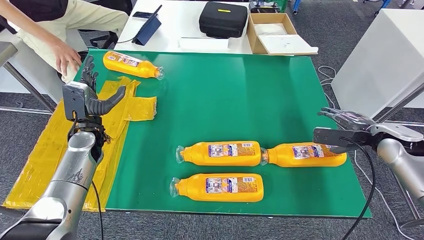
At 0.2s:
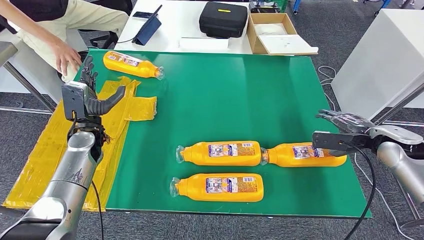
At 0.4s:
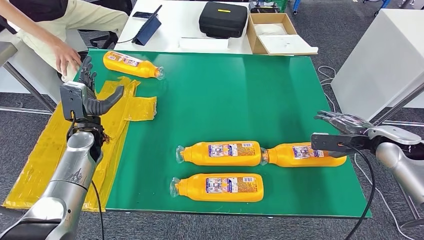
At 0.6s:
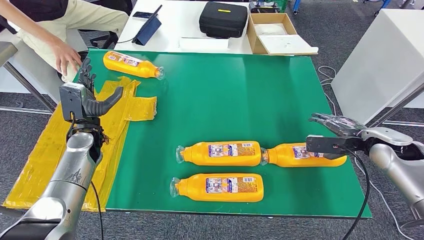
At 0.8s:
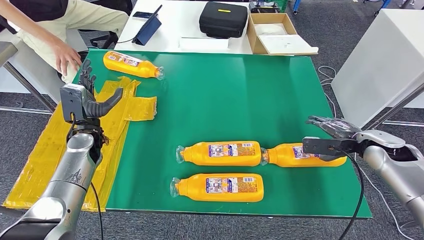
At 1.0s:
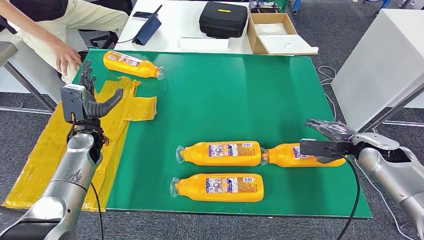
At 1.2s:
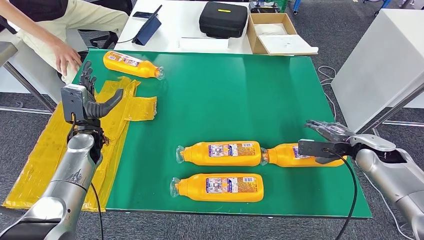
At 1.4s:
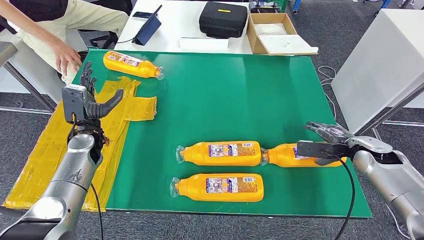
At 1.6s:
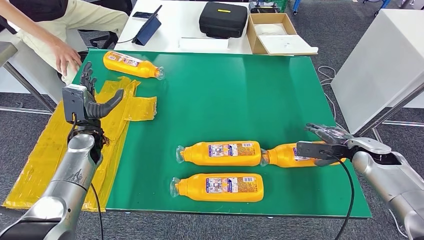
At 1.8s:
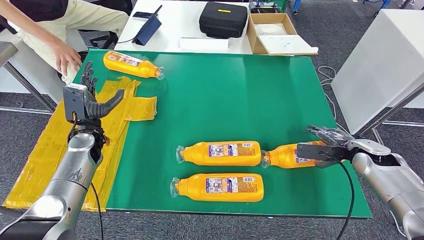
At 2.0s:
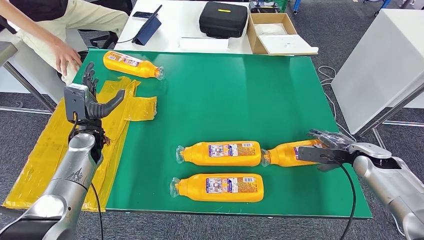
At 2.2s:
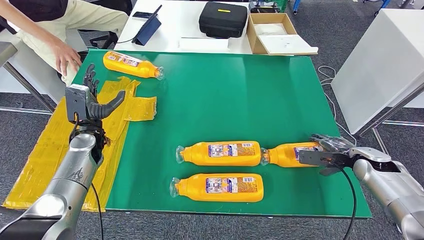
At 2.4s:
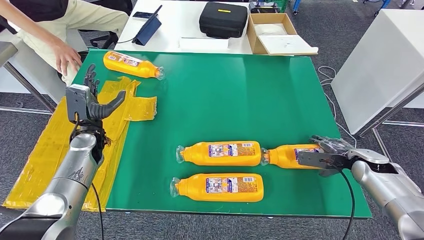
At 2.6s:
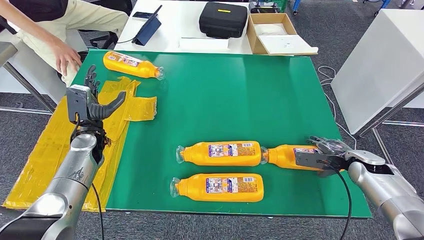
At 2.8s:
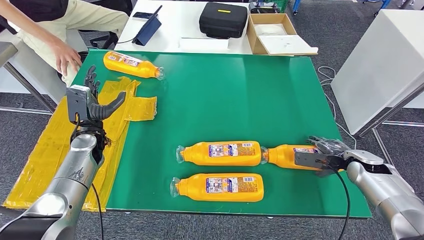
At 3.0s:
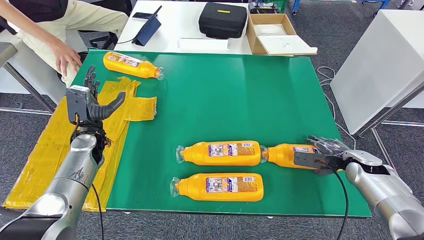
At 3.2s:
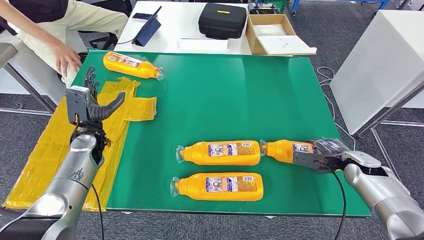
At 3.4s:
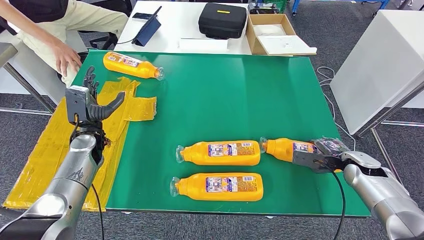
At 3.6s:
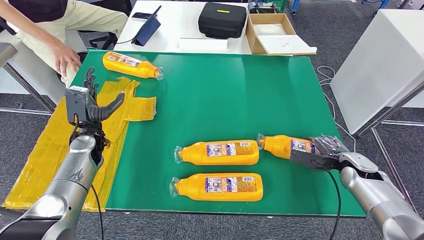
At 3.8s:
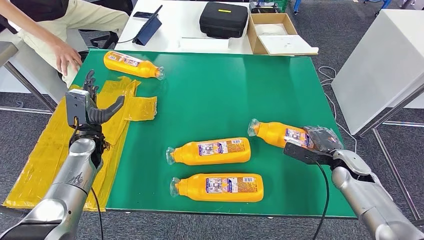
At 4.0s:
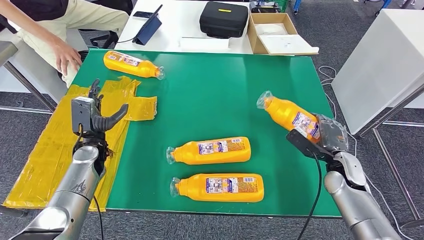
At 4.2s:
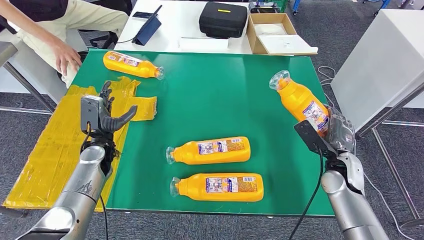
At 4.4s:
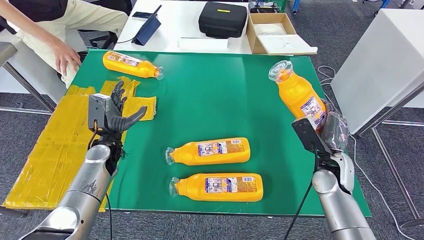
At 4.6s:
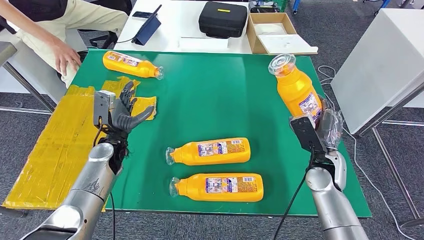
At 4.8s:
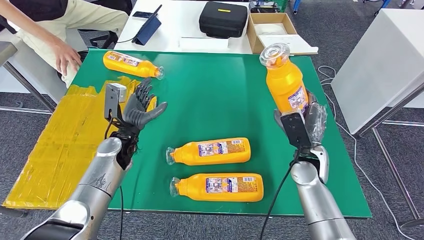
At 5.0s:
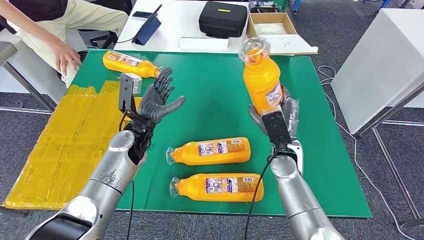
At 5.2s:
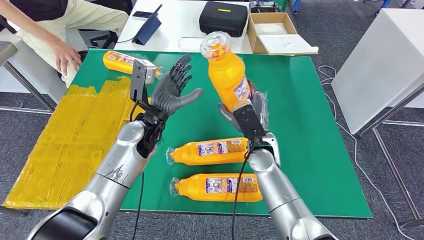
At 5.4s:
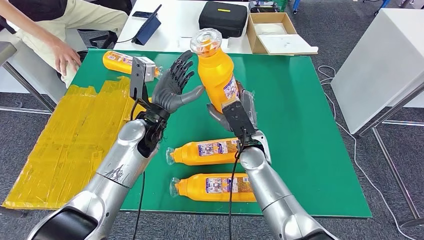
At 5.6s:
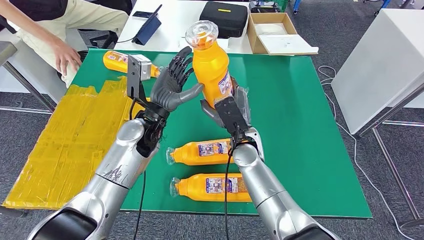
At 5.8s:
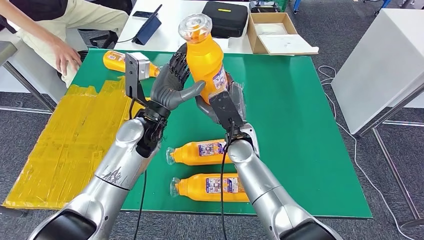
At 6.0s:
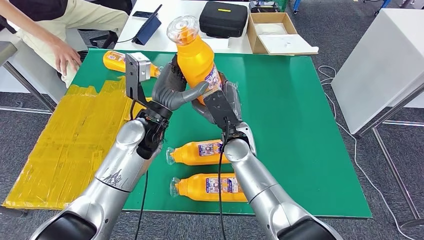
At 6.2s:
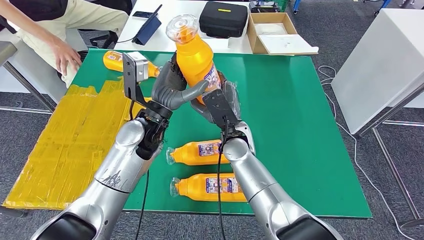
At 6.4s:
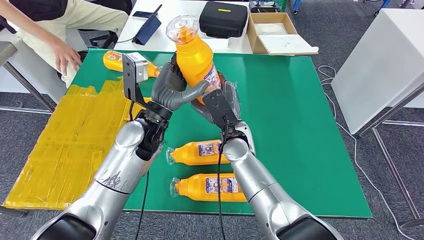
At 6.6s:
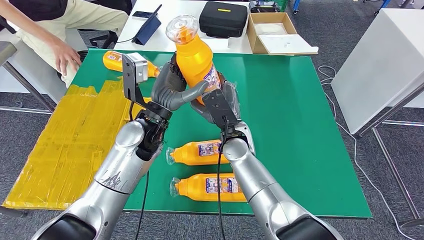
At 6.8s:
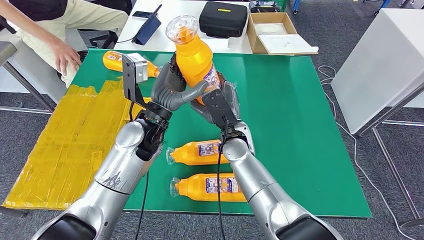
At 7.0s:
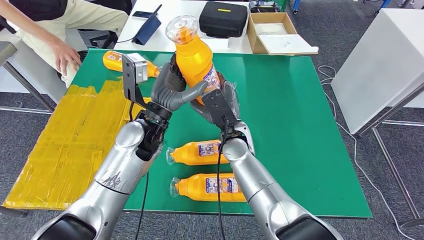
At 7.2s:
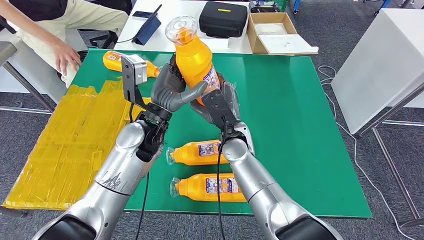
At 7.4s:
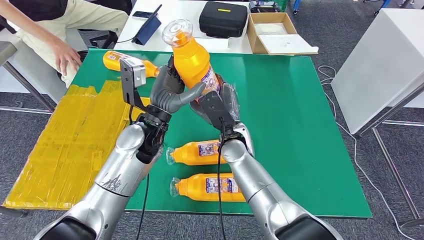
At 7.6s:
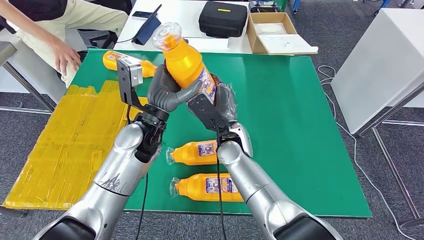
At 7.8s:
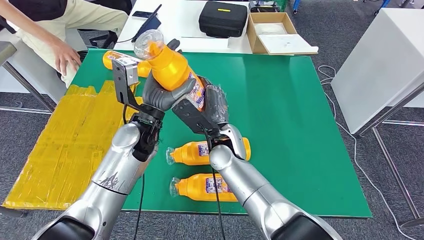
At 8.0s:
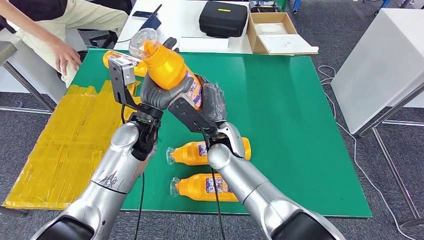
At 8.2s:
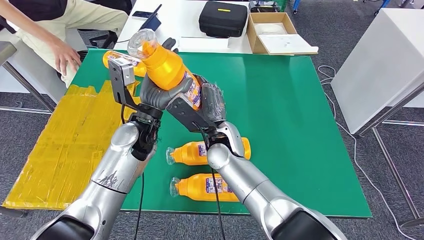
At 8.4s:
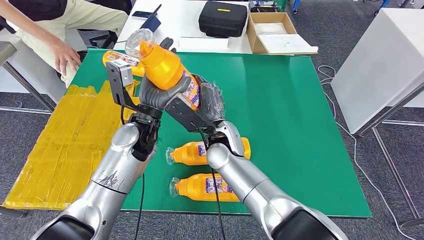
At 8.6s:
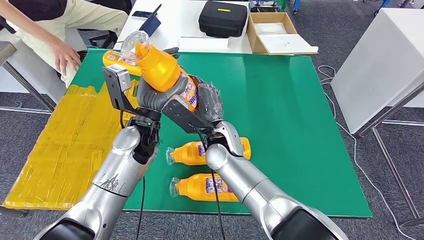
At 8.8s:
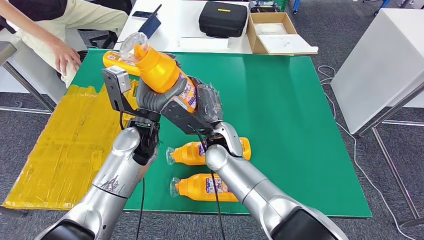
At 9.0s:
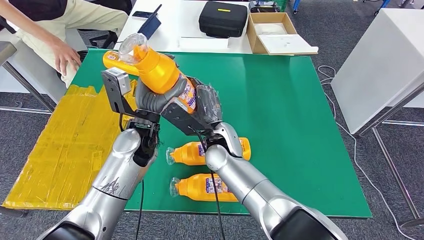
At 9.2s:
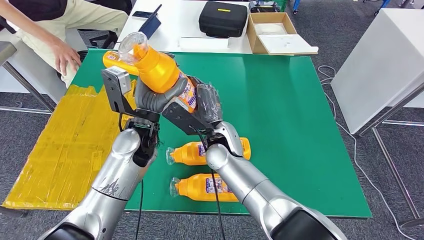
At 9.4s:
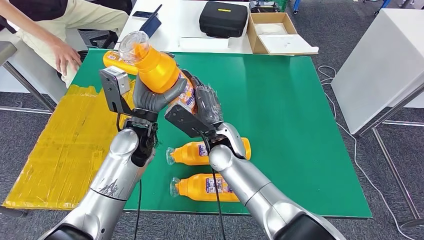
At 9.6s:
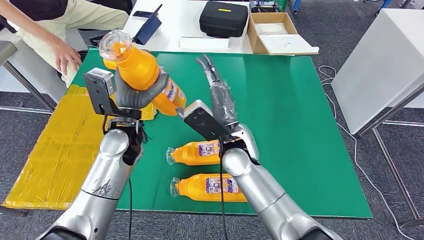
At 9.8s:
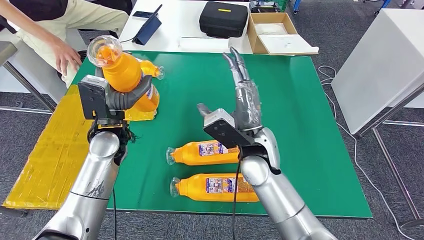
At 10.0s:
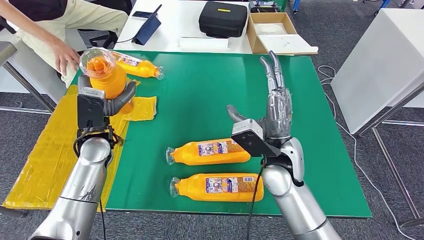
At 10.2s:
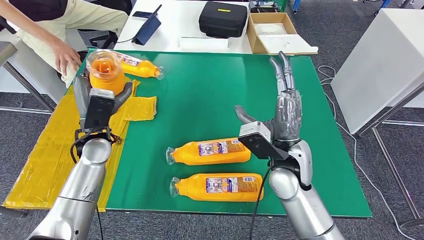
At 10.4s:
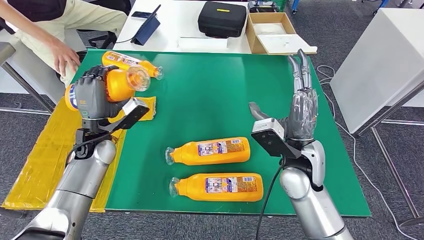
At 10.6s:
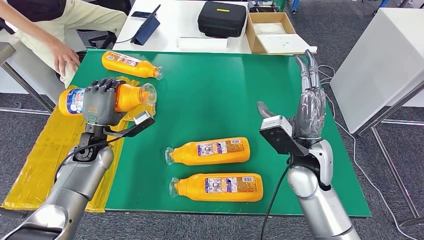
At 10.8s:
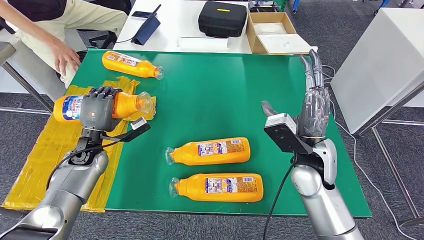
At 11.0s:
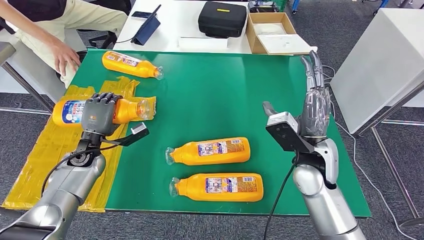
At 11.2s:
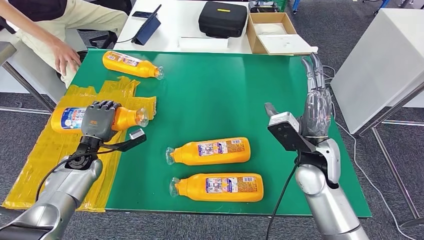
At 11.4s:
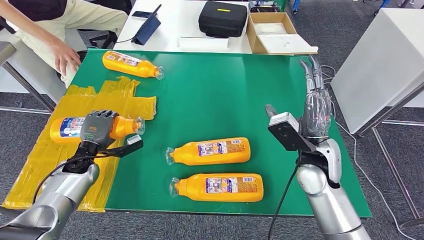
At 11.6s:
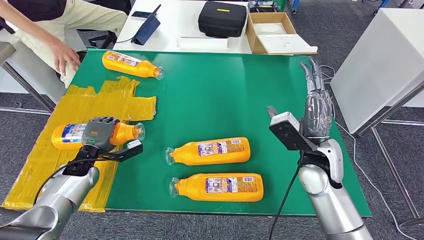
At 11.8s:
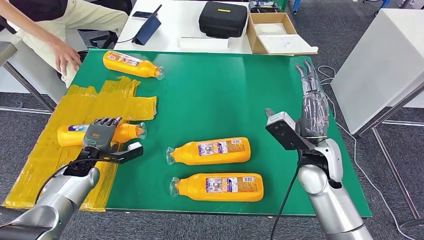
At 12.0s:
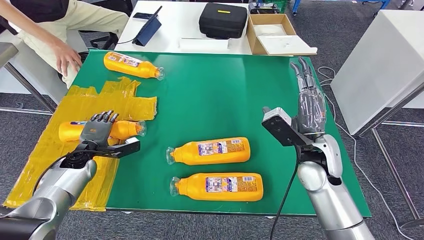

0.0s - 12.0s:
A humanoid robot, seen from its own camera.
Step, 0.4s - 6.2s: Pick up the bottle from the table.
0.0s - 1.6s: The right hand moves downward, approximately 5 cm.
1.6s - 3.0s: The hands make only small movements.
6.0s - 7.6s: There are only small adjustments of the hands.
7.6s - 9.0s: The hands move only a little.

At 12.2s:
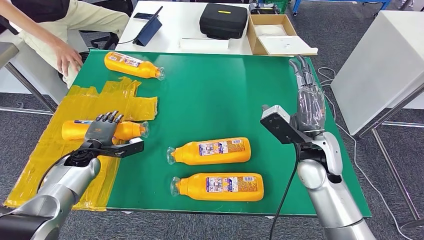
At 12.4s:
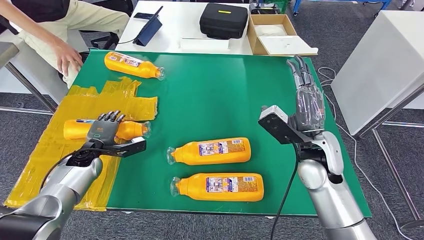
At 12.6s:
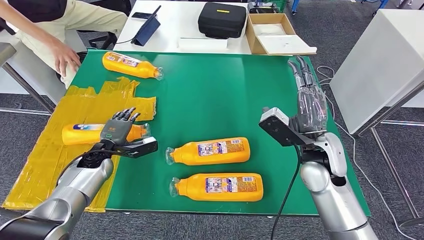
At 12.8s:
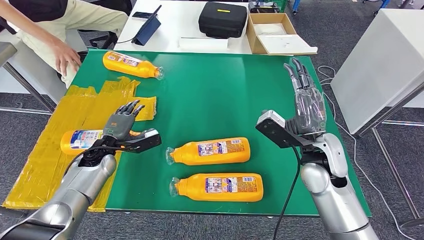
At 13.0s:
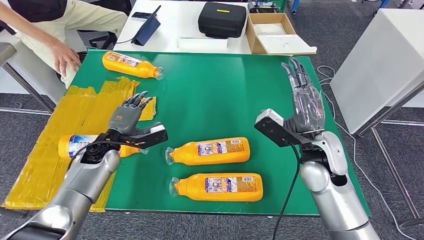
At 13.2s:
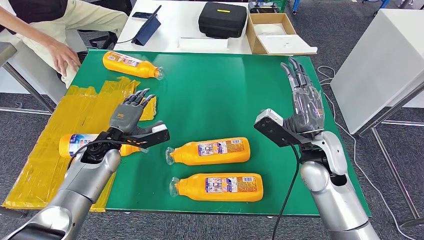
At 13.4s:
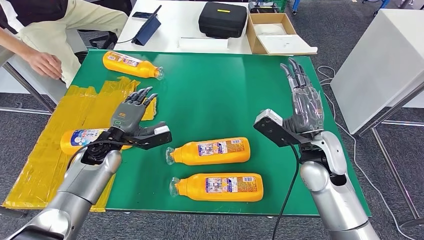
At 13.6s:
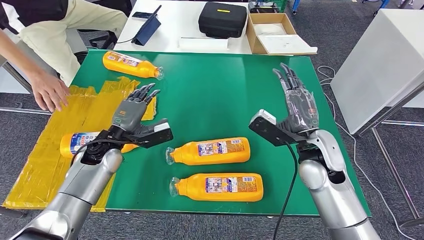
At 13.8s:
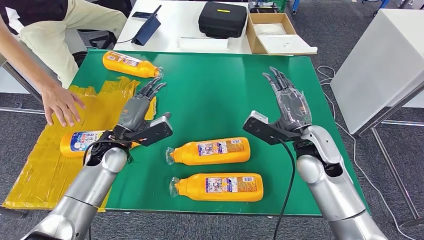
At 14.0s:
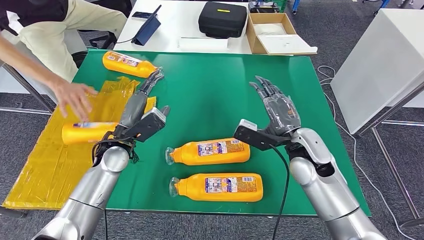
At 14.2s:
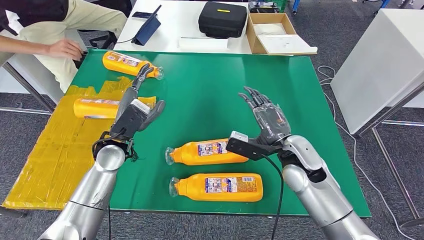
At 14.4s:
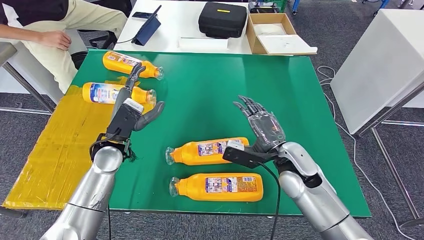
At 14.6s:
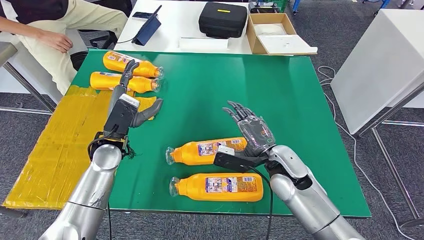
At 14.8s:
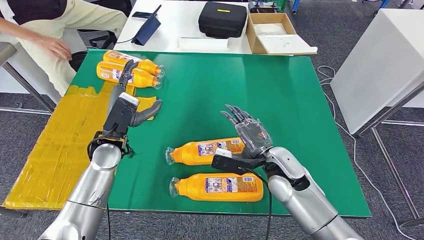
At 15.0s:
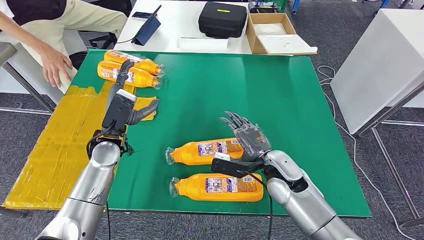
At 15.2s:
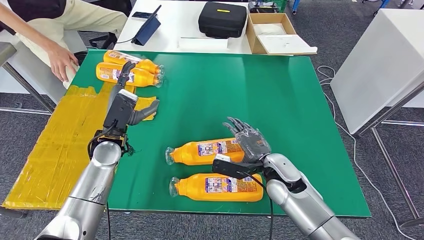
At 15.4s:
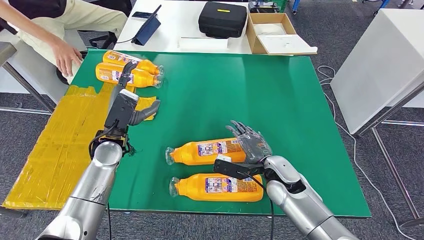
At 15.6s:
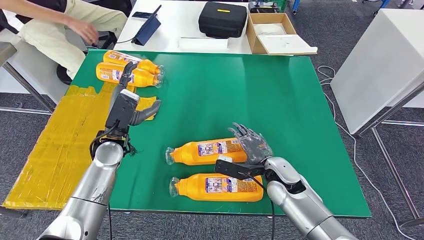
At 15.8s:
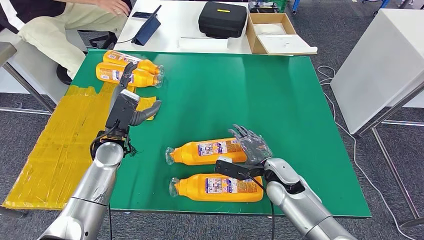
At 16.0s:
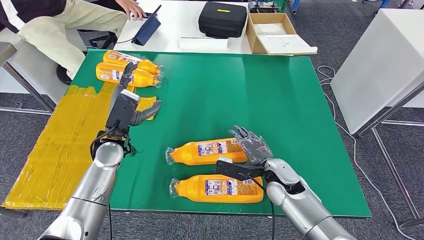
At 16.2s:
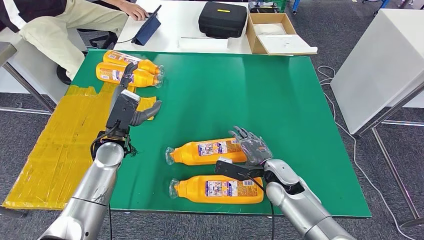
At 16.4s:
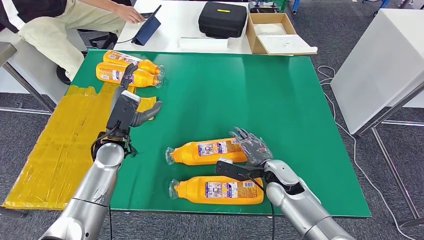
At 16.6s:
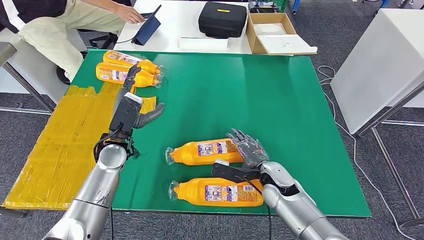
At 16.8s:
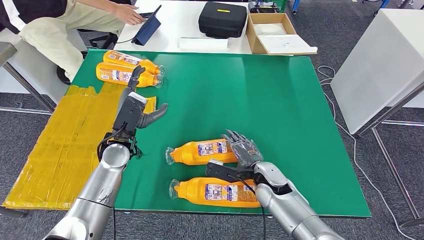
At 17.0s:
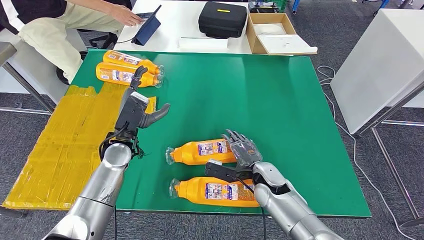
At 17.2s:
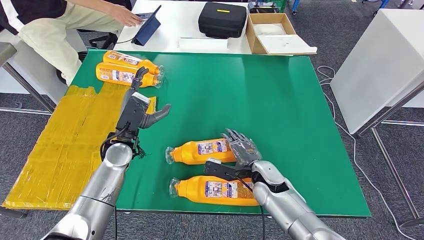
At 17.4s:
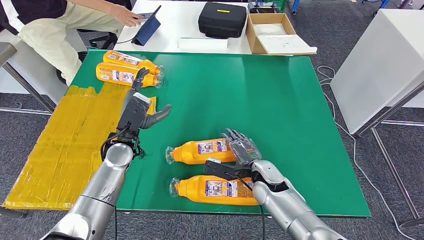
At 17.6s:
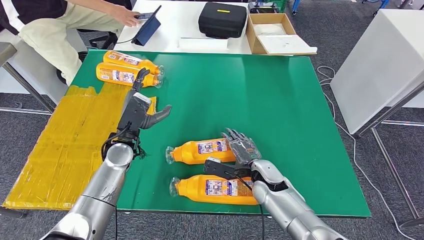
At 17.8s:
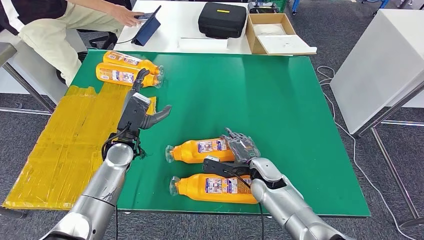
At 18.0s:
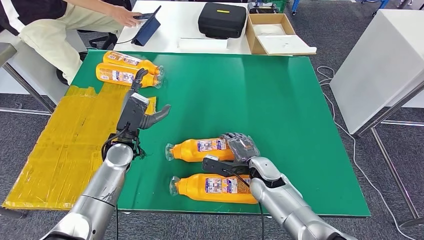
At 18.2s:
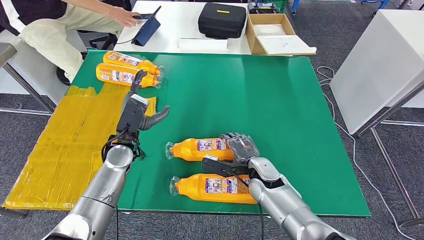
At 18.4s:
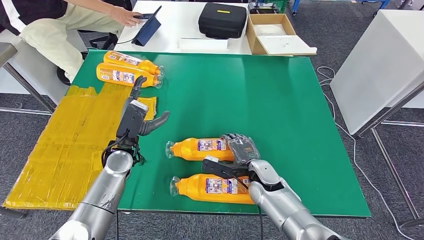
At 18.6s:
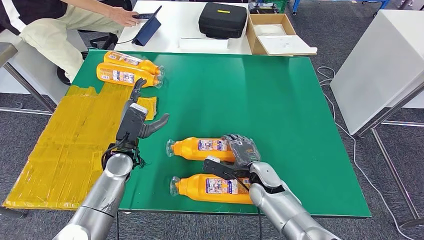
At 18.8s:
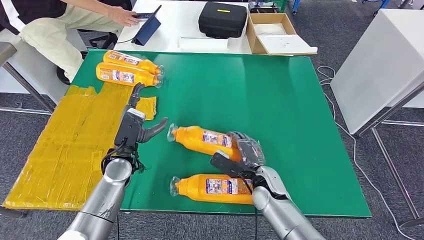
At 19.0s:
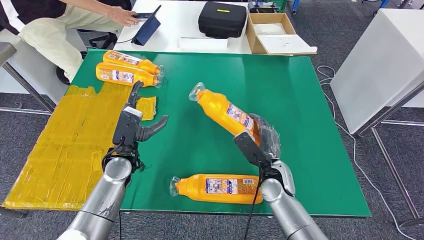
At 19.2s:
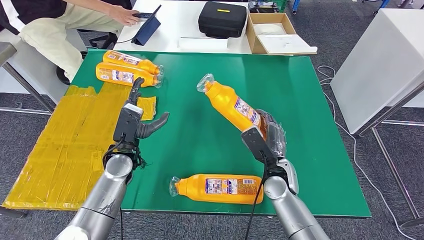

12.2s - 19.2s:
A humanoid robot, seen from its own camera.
Step, 12.2s - 14.4s: Flip the bottle to face forward.
15.0s - 16.4s: The right hand travels downward by roughly 5 cm.
16.4s - 17.8s: There are only small adjustments of the hands.
